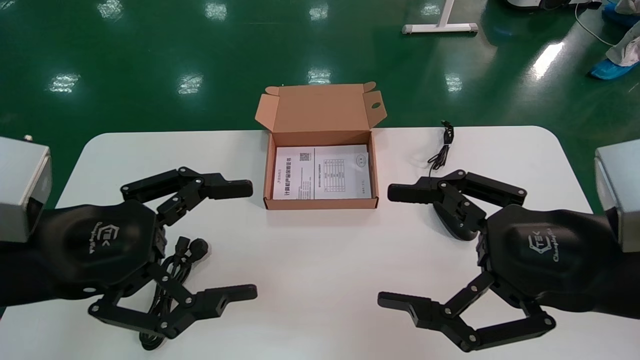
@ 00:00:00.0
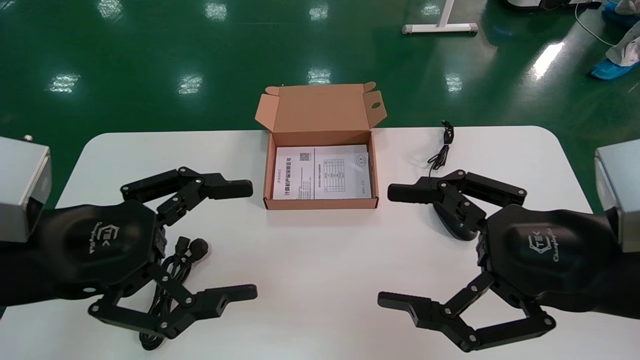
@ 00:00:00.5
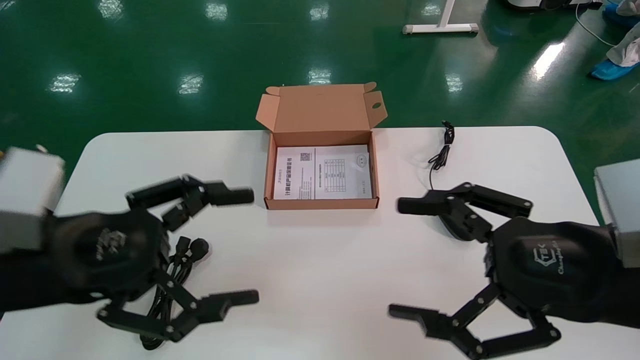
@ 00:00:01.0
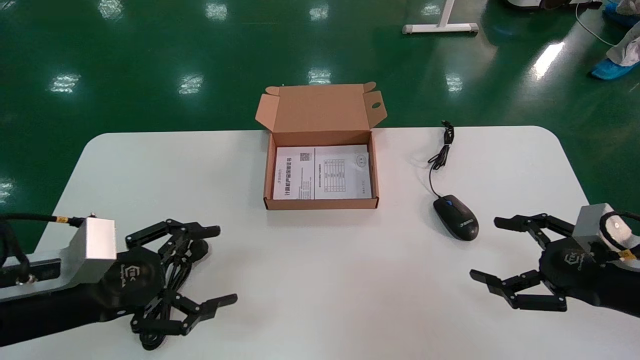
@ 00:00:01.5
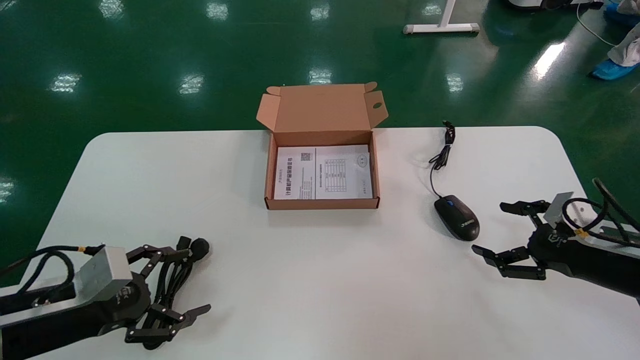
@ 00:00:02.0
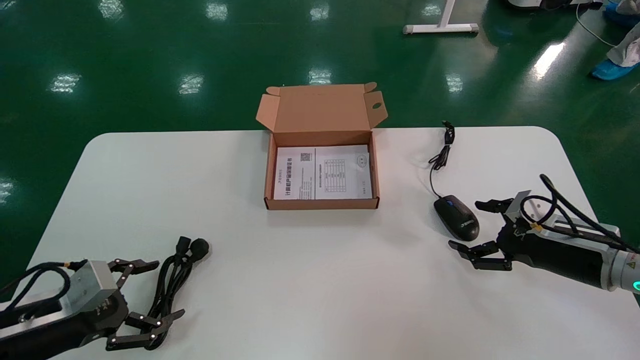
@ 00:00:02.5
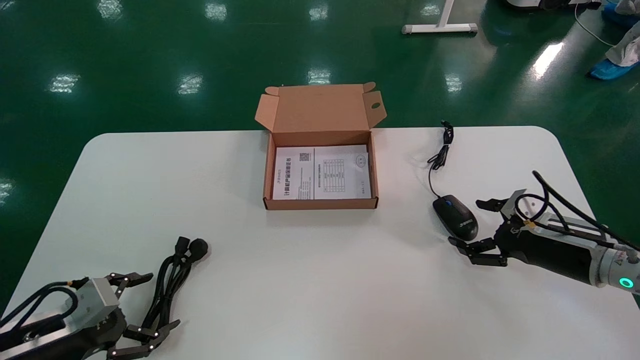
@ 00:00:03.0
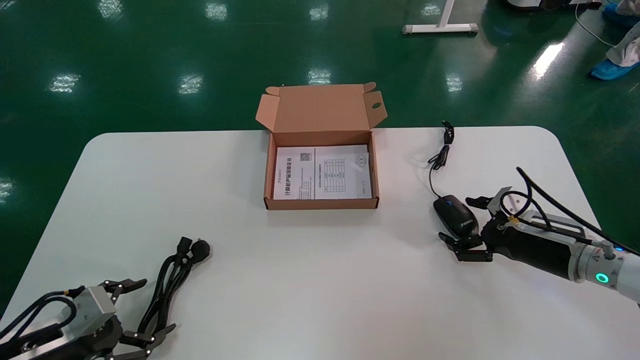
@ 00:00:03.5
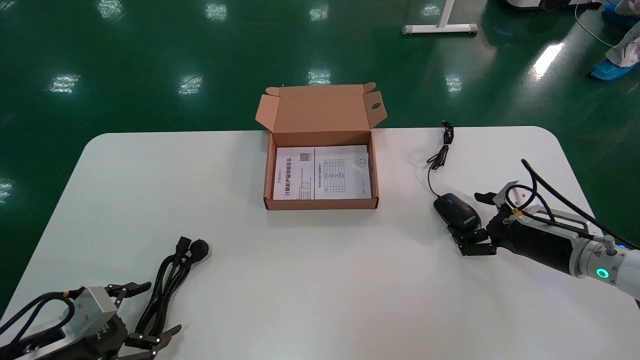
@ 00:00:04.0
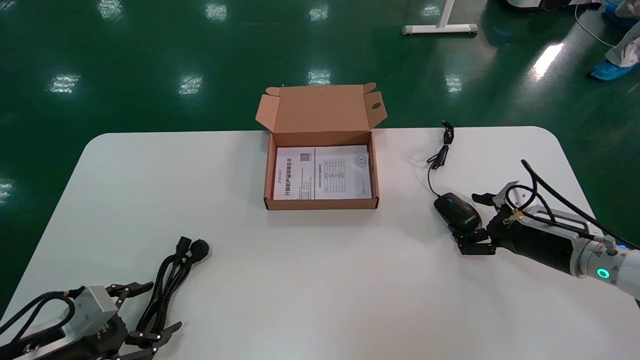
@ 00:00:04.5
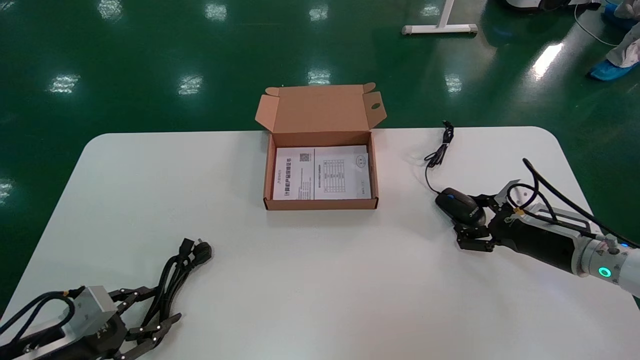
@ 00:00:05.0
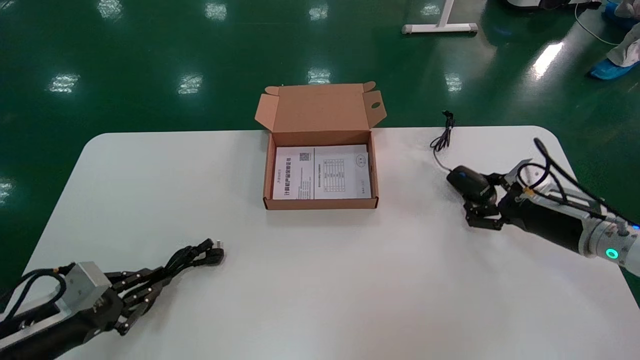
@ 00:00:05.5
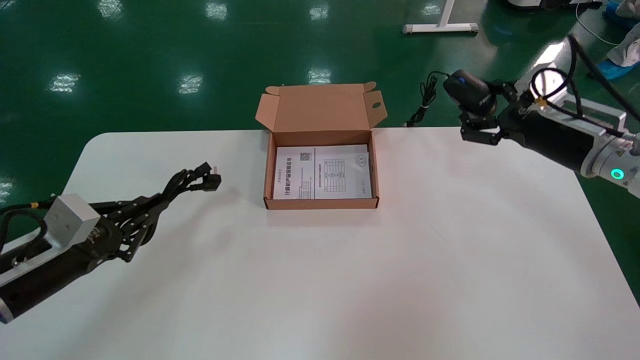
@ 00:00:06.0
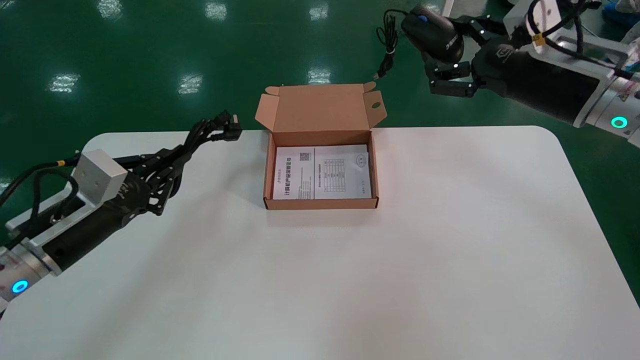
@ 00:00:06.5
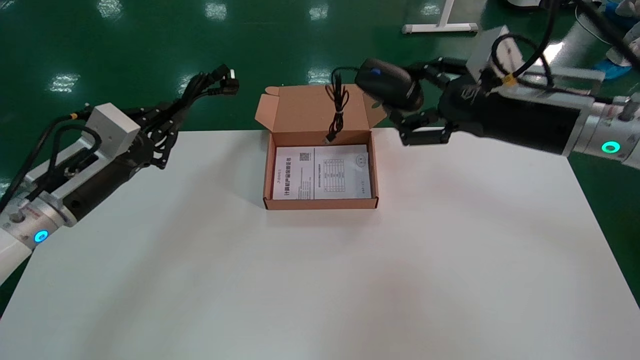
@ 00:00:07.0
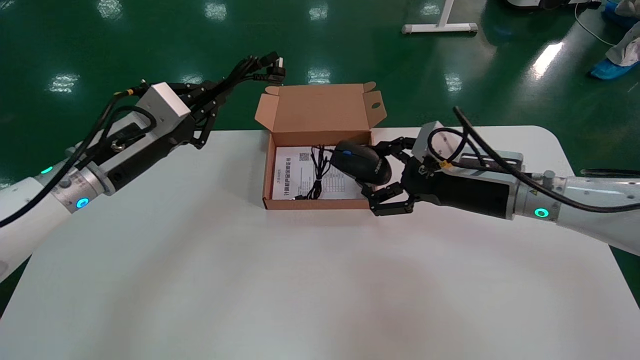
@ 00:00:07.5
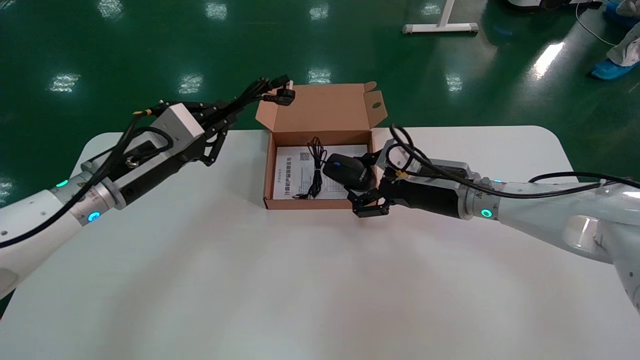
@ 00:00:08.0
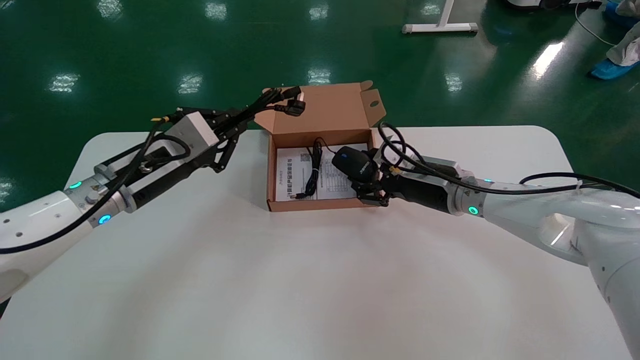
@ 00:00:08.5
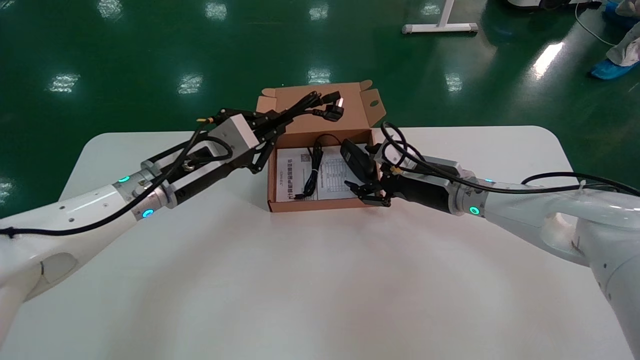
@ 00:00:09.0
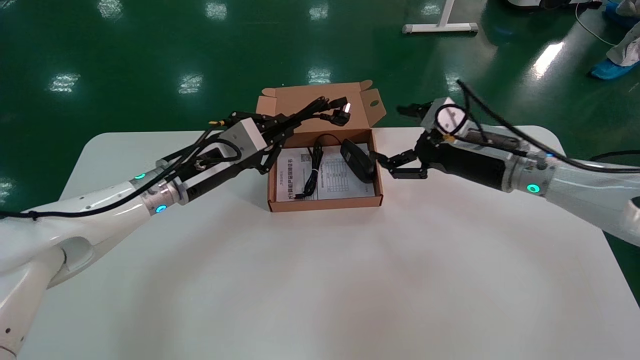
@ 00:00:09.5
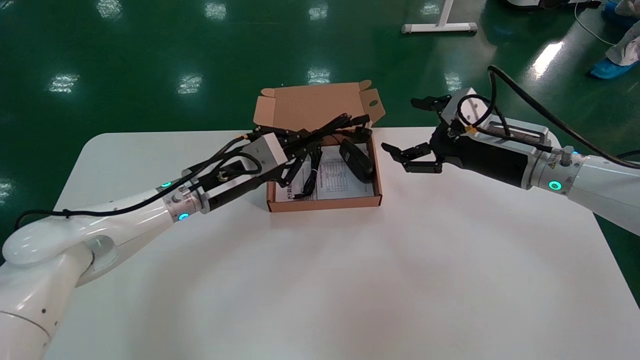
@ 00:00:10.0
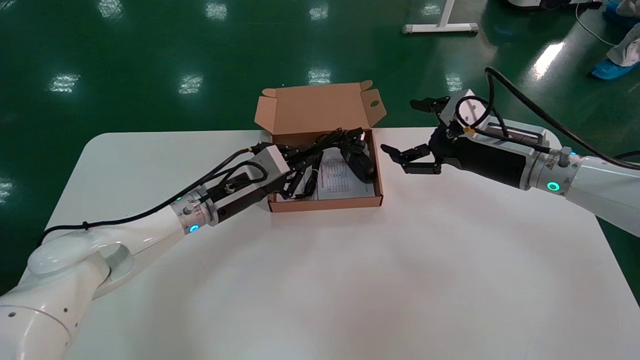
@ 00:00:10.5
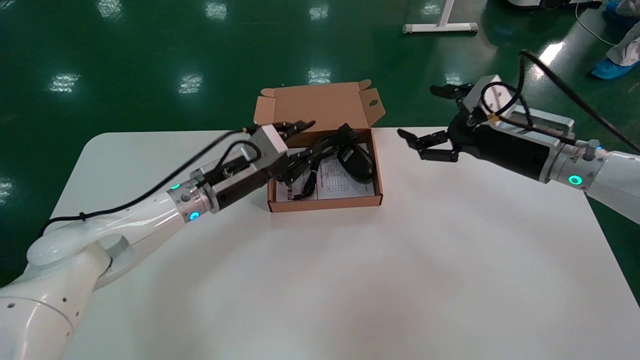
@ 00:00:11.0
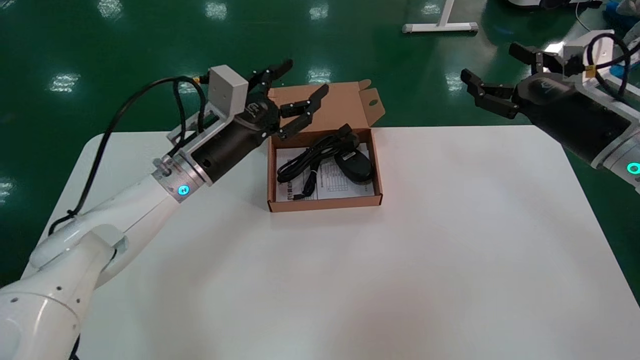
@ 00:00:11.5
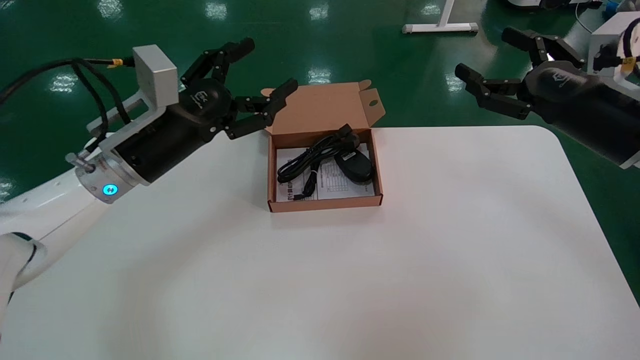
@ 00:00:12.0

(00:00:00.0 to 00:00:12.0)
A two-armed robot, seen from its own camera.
Step, 00:00:01.0 - 00:00:05.5: Grab and pick up the mouse and power cord from the accessory packaging area.
Step, 00:00:06.0 - 00:00:11.5: Place the mouse and power cord into the box.
00:00:00.0 - 00:00:02.0: The left gripper heads downward and to the left, covering approximately 15 cm; the right gripper moves to the right, forward and downward, some 20 cm.
00:00:02.0 - 00:00:04.0: The right gripper is displaced forward by some 10 cm, while the left gripper travels downward by some 10 cm.
00:00:04.0 - 00:00:06.0: The left gripper moves upward, about 10 cm, and closes. The right gripper shifts approximately 15 cm upward, and closes its fingers.
00:00:06.0 - 00:00:08.0: The right gripper moves to the left and downward, some 15 cm. The left gripper is displaced upward, to the right and forward by approximately 15 cm.
00:00:08.0 - 00:00:10.0: The right gripper shifts some 5 cm to the right, and opens its fingers, while the left gripper shifts roughly 10 cm to the right and forward.
00:00:10.0 - 00:00:12.0: The left gripper moves upward, backward and to the left, roughly 10 cm, and opens its fingers, while the right gripper is displaced to the right, backward and upward by about 10 cm.

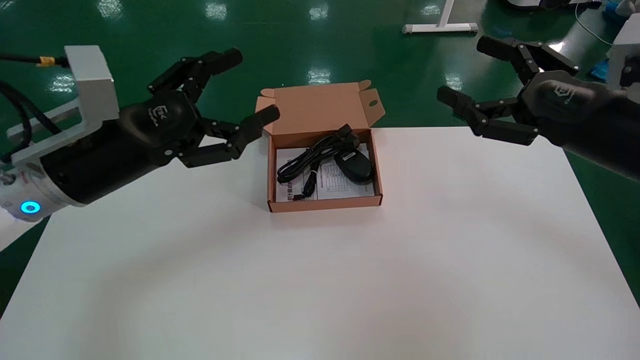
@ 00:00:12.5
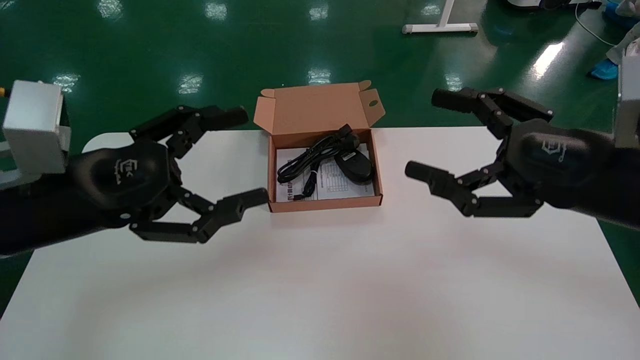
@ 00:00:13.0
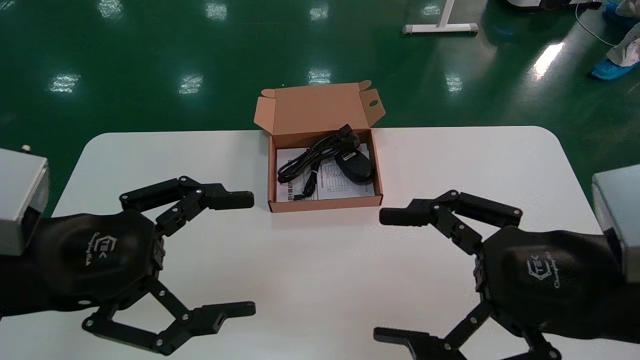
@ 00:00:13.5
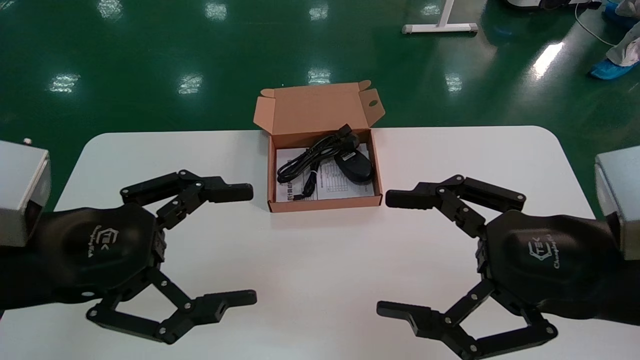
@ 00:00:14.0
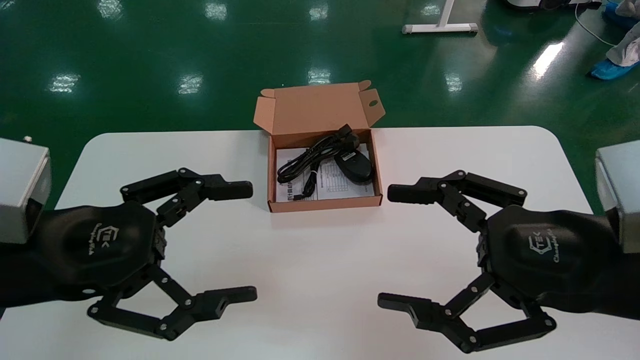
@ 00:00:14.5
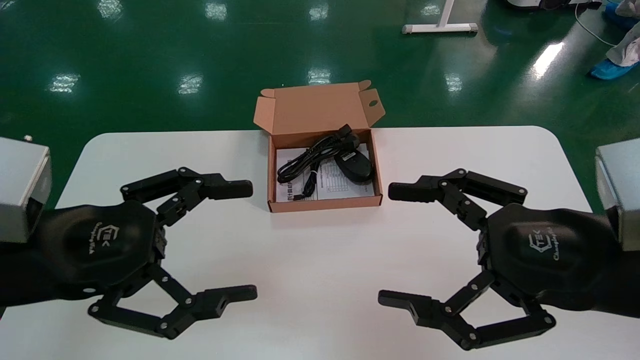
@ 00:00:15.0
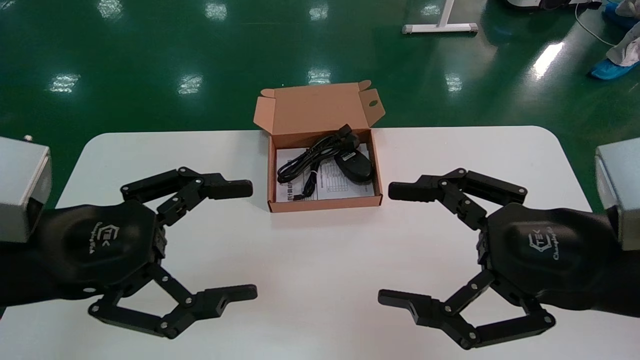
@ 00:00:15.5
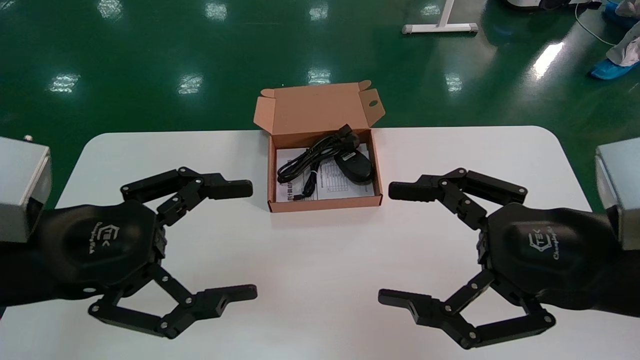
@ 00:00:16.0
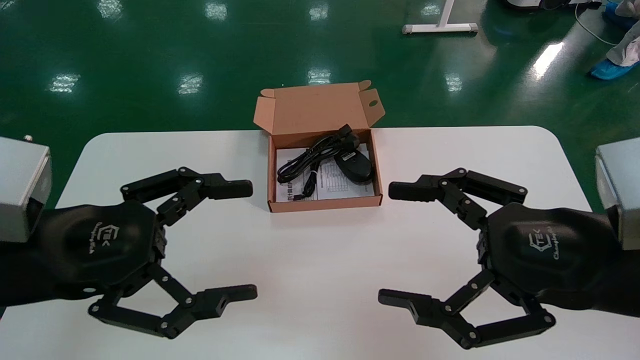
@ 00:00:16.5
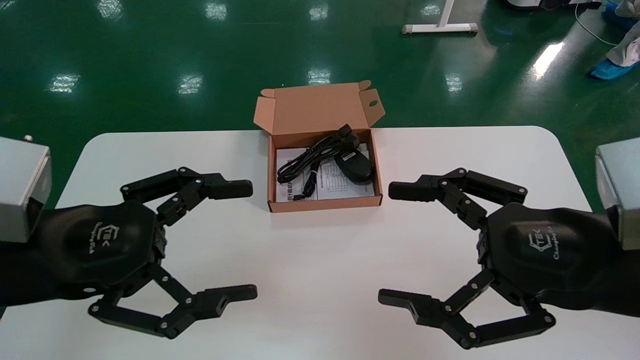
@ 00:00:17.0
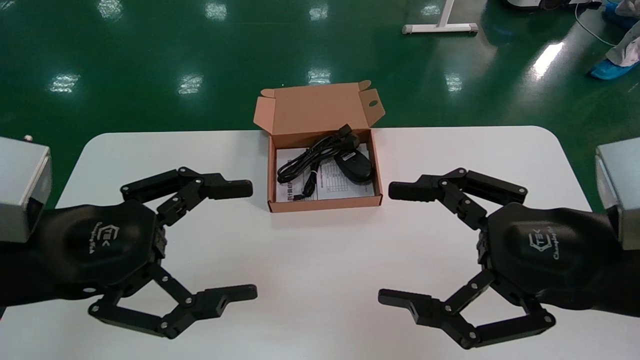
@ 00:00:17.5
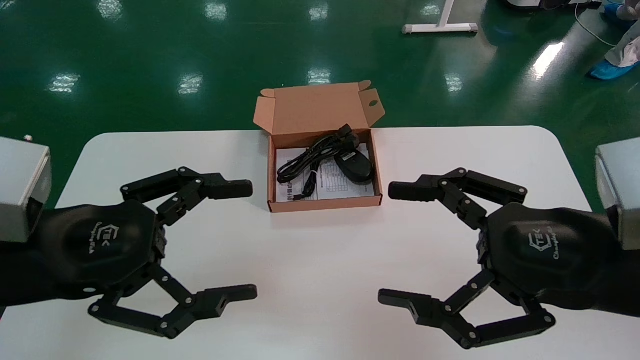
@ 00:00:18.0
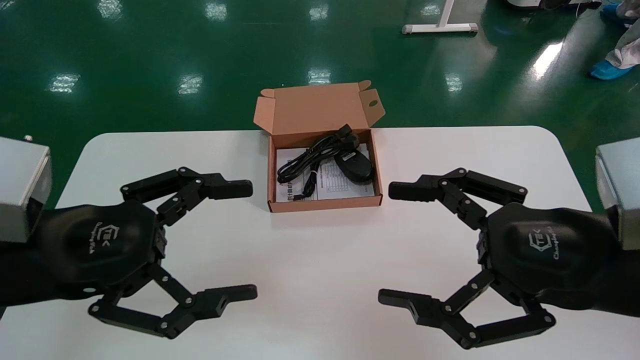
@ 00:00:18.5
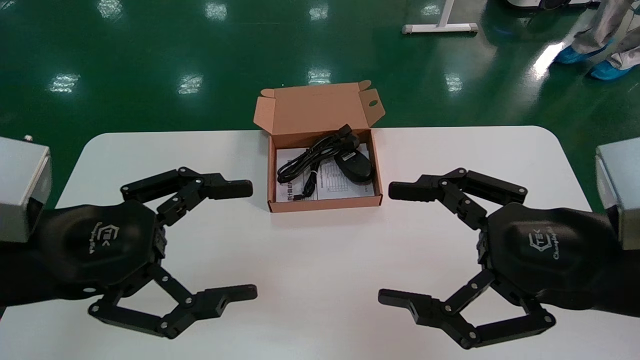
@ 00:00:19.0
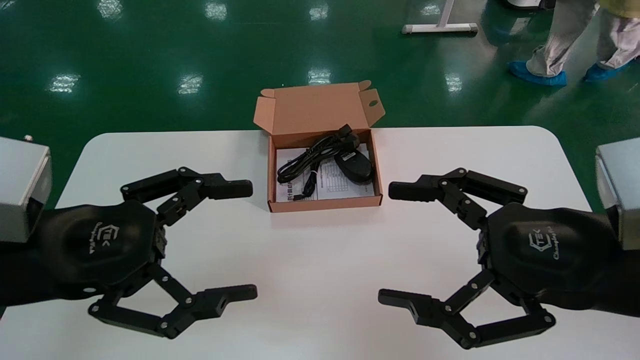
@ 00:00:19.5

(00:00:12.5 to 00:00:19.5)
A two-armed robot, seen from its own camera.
00:00:12.5 - 00:00:14.5: The left gripper is displaced backward by about 10 cm; the right gripper goes roughly 15 cm backward and to the left.
00:00:14.5 - 00:00:19.5: The two grippers keep their place.
